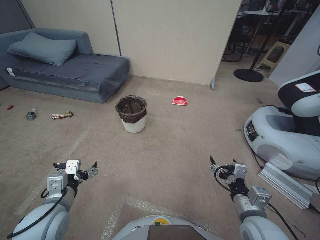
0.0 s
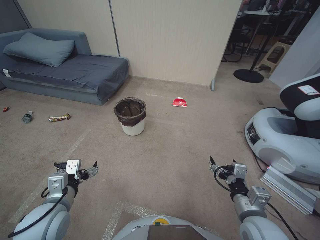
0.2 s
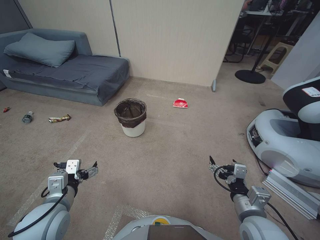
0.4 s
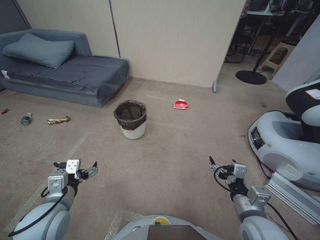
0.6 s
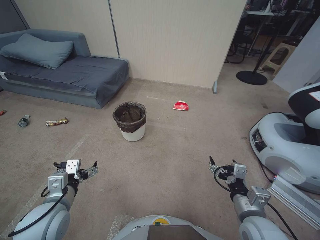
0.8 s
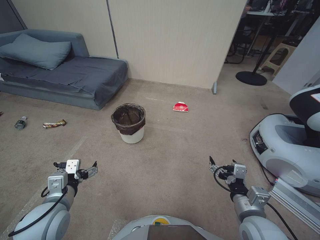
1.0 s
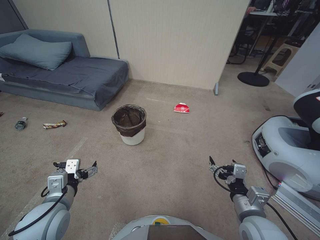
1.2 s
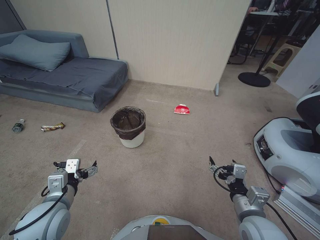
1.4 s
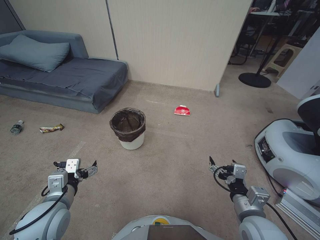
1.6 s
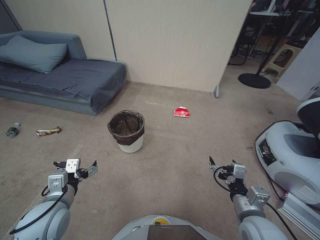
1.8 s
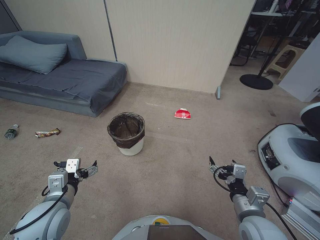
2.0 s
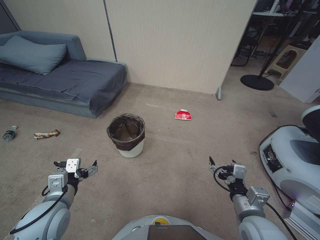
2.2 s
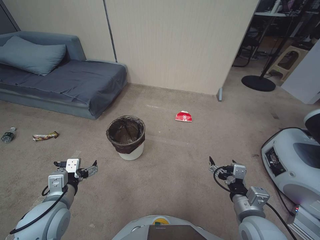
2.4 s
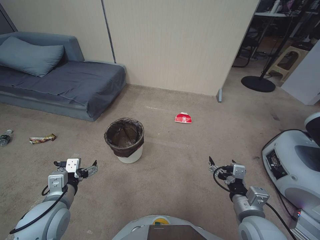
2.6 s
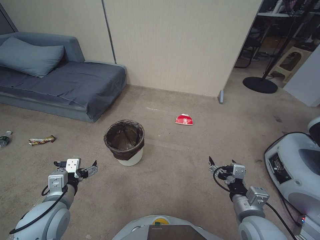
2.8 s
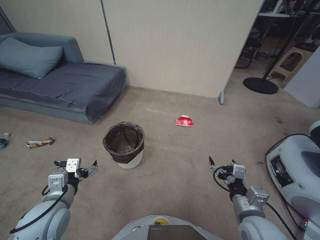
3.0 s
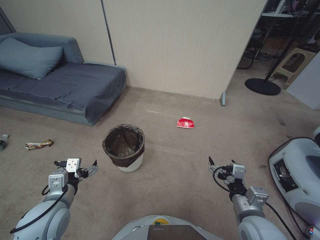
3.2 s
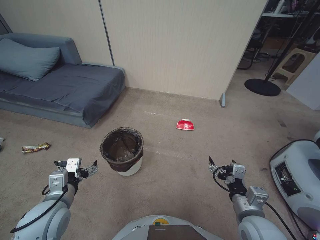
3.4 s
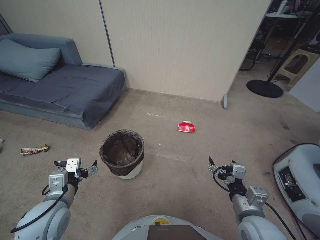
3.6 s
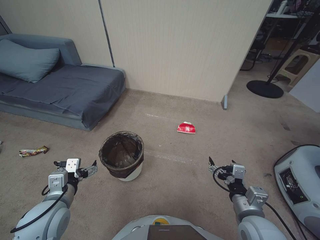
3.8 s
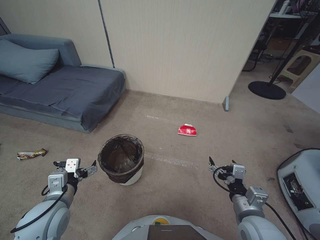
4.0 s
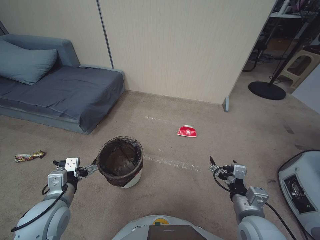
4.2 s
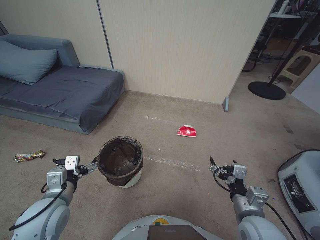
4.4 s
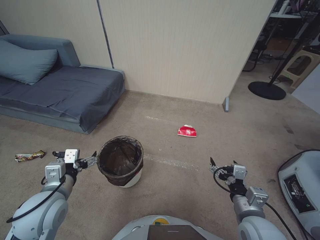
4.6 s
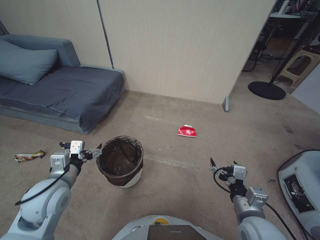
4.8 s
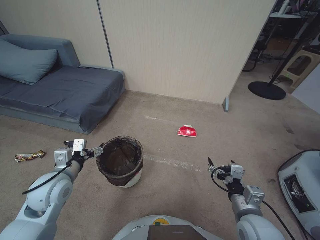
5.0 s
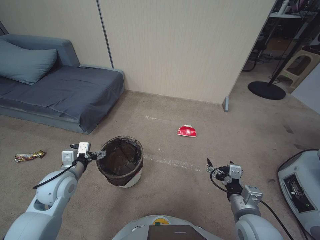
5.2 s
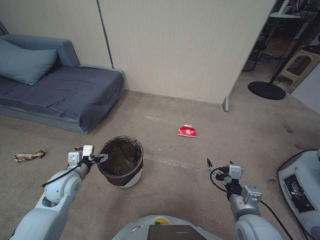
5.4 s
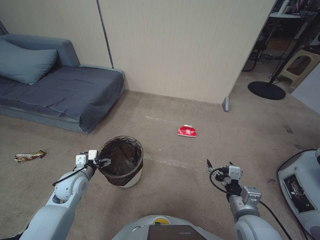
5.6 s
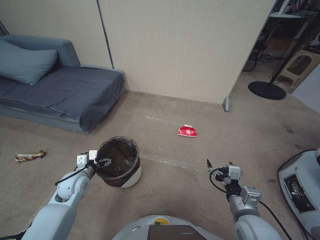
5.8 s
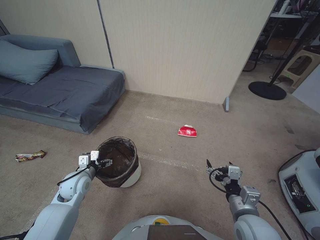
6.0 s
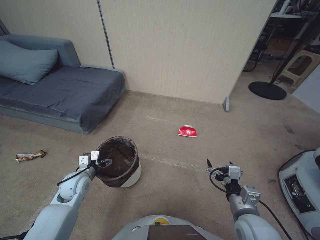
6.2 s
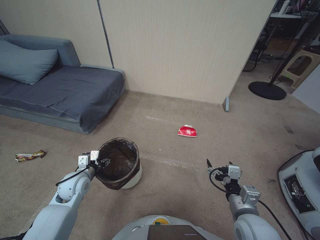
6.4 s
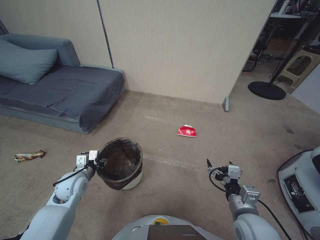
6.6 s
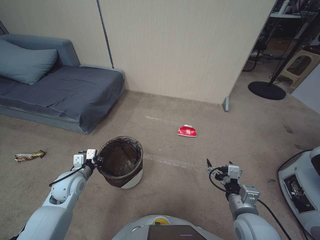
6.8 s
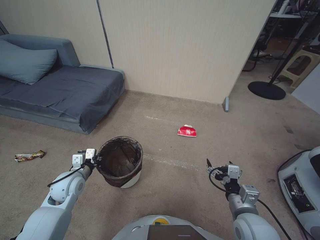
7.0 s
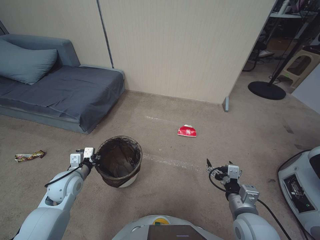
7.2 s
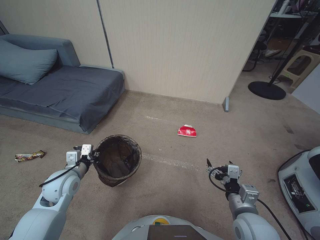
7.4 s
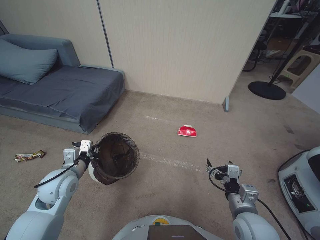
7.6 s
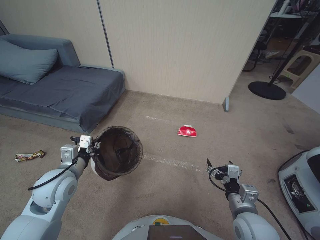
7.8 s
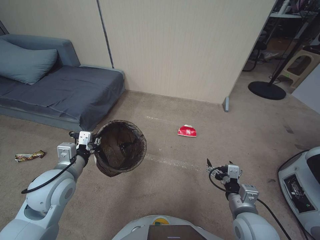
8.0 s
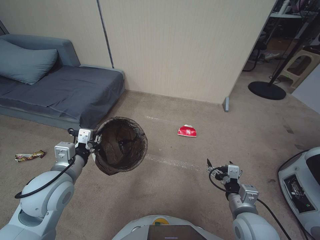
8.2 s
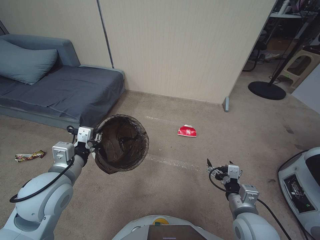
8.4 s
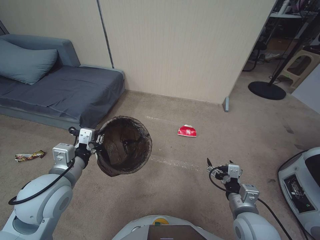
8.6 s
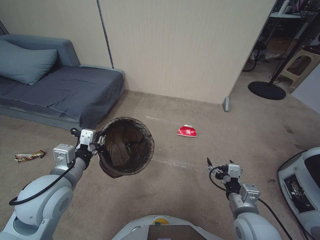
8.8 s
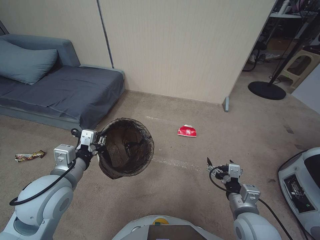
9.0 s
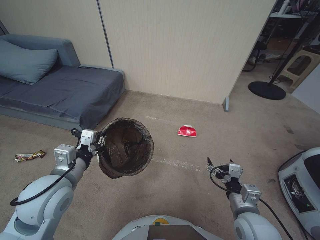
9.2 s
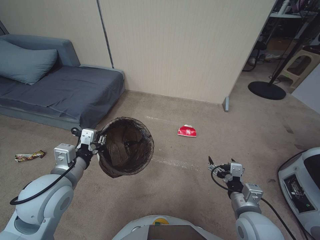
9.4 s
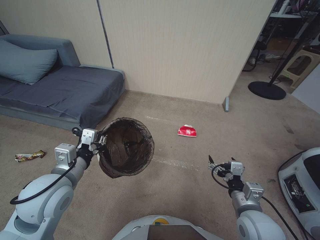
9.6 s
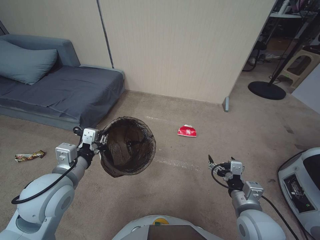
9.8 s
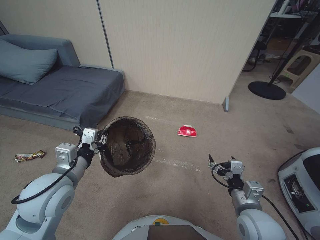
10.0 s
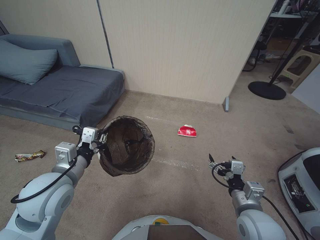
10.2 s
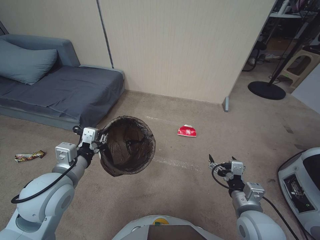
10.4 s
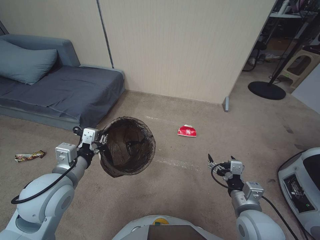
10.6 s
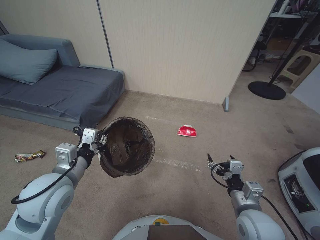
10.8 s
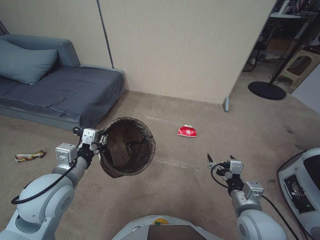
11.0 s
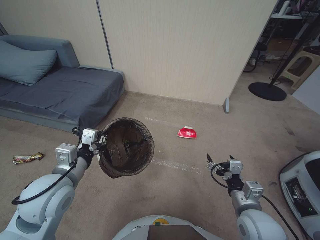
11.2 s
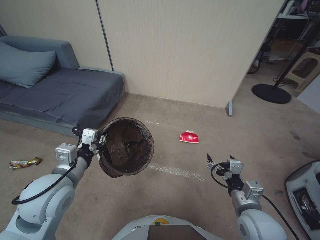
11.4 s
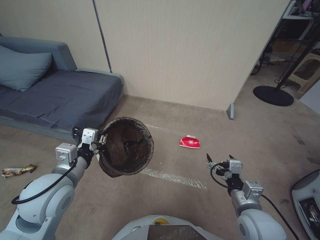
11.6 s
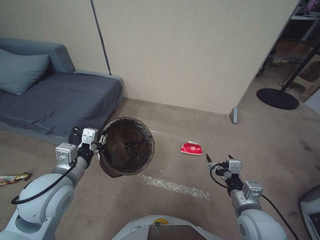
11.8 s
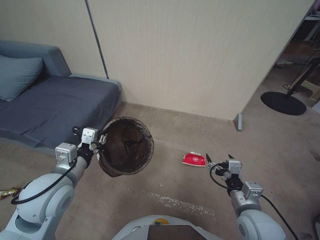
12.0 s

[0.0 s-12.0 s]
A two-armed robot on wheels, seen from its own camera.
Task of the whole recording: Pick up the trash bin, then pick up the garbage from the floor and place it into the trash bin.
1.6 to 4.4 s: Both grippers stay about where they are.
4.4 to 6.0 s: The left gripper travels forward and downward by roughly 15 cm.
6.0 to 7.6 s: The left gripper moves upward, approximately 5 cm, and closes its fingers.
7.6 to 9.0 s: The left gripper shifts roughly 15 cm upward, backward and to the right.
9.0 to 10.4 s: The grippers move only a little.

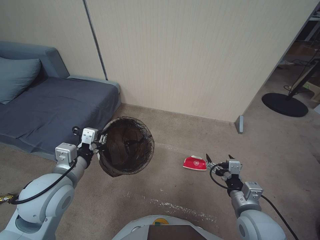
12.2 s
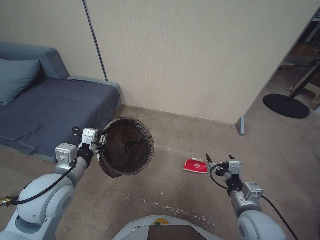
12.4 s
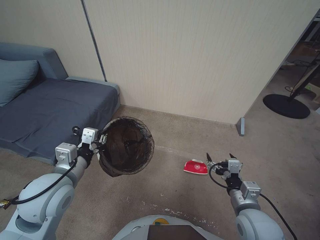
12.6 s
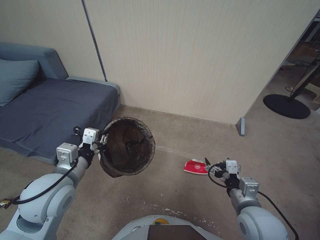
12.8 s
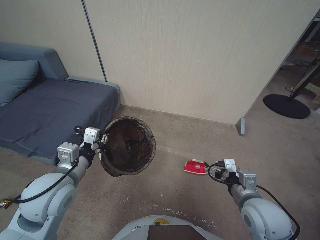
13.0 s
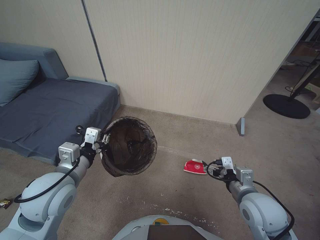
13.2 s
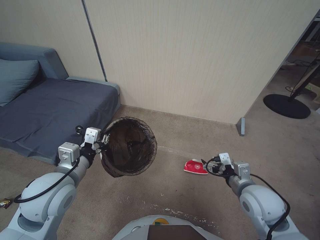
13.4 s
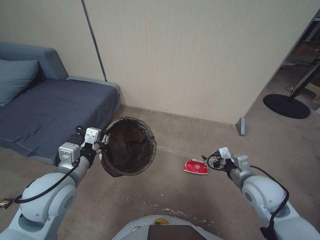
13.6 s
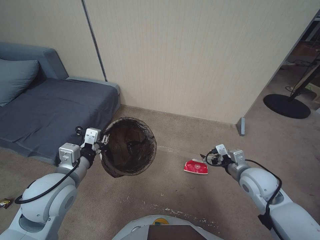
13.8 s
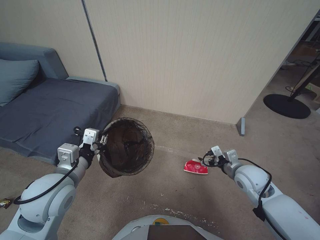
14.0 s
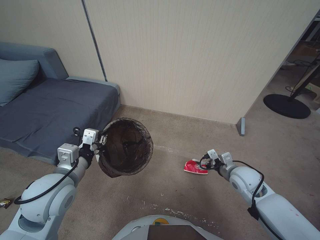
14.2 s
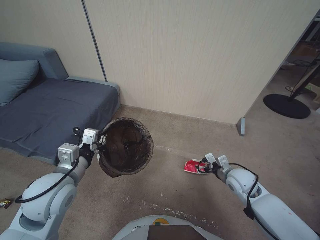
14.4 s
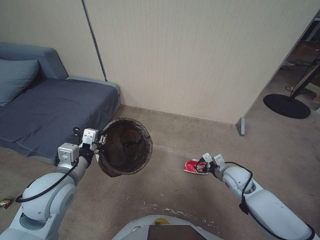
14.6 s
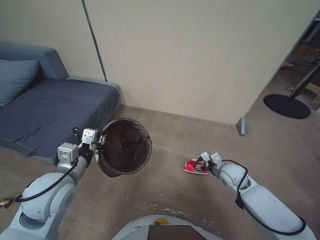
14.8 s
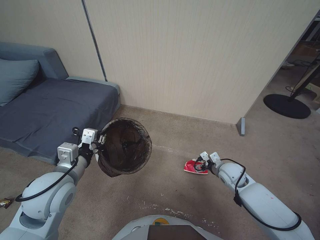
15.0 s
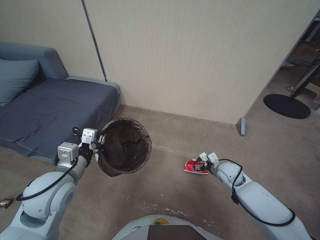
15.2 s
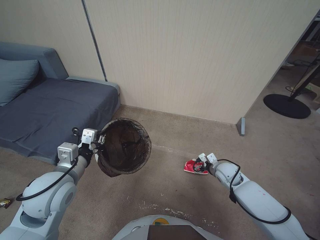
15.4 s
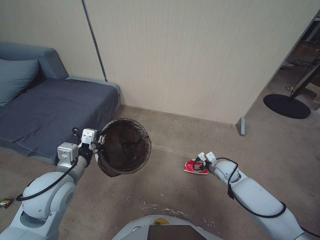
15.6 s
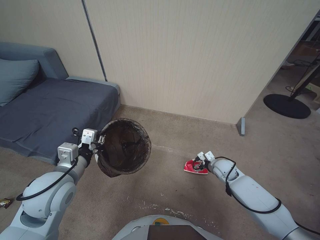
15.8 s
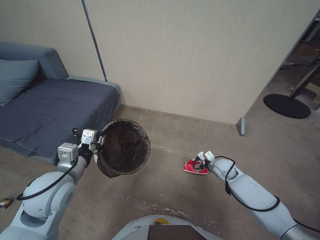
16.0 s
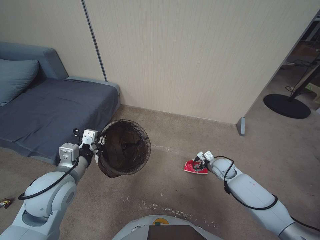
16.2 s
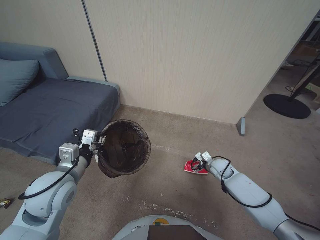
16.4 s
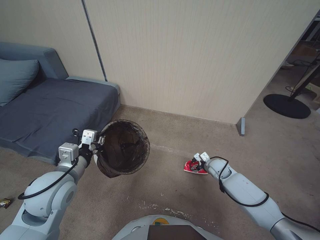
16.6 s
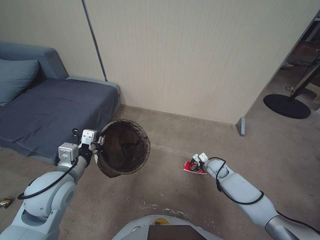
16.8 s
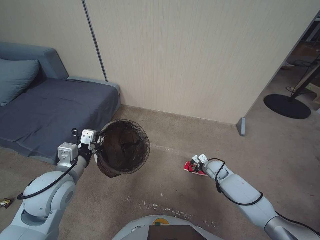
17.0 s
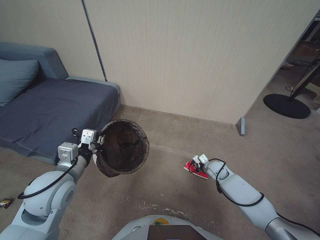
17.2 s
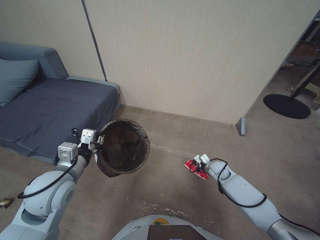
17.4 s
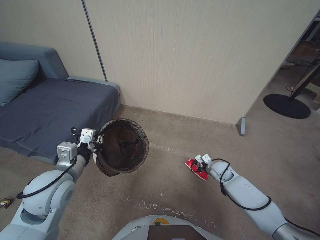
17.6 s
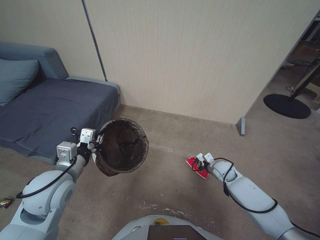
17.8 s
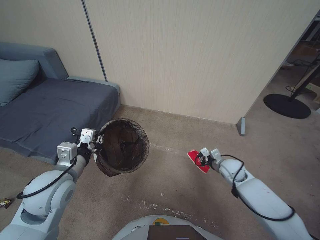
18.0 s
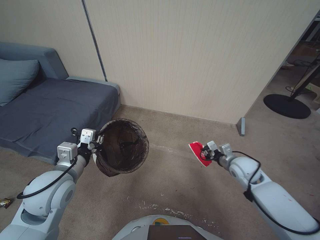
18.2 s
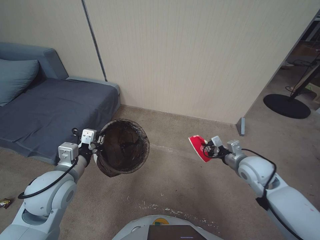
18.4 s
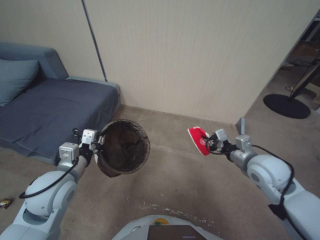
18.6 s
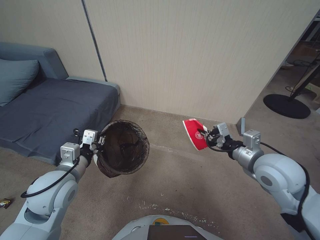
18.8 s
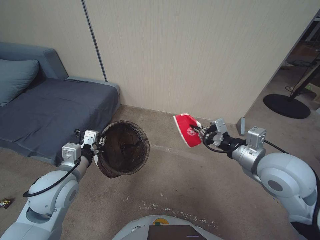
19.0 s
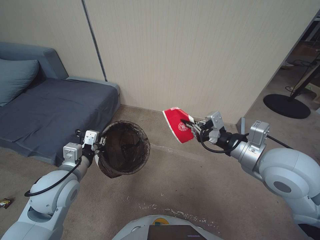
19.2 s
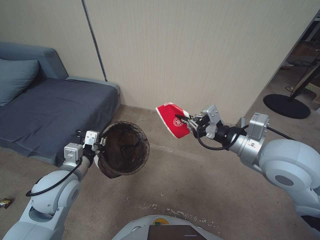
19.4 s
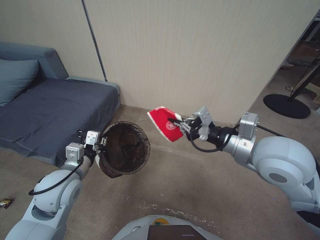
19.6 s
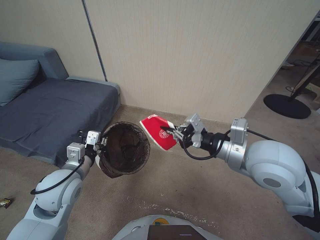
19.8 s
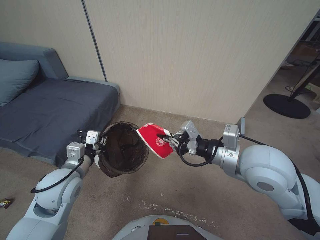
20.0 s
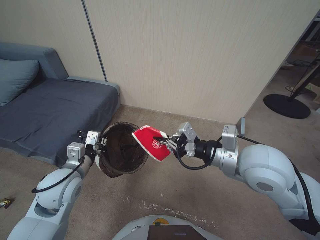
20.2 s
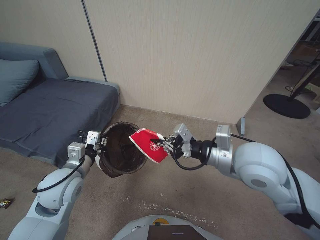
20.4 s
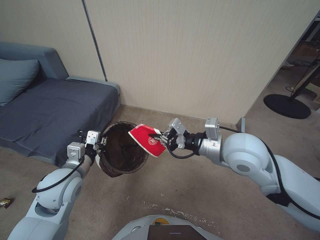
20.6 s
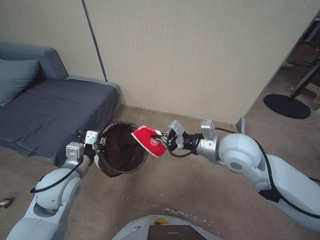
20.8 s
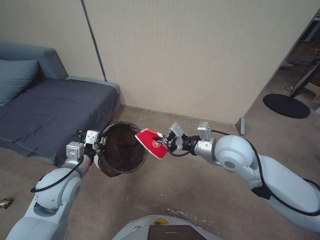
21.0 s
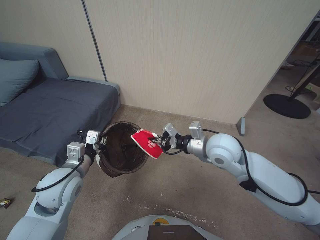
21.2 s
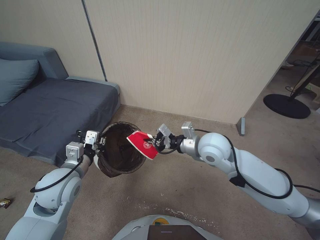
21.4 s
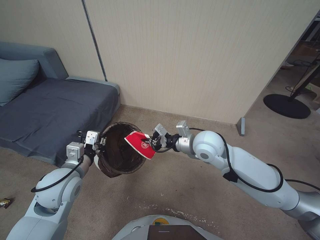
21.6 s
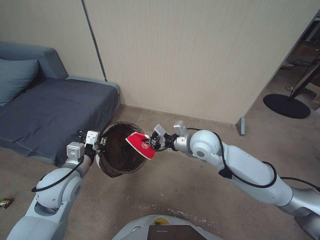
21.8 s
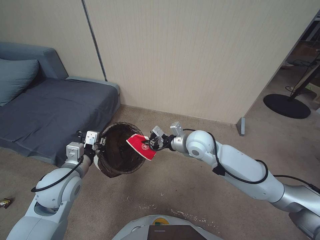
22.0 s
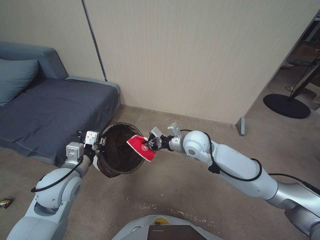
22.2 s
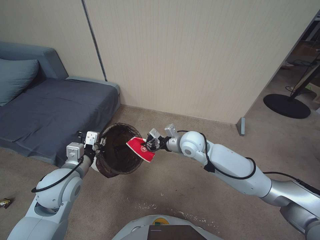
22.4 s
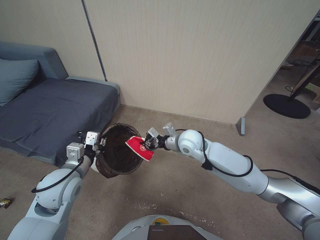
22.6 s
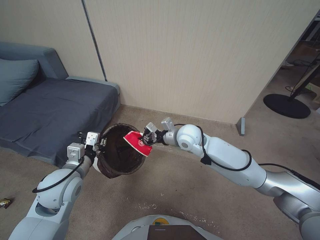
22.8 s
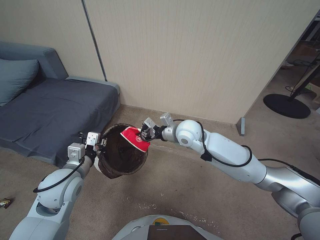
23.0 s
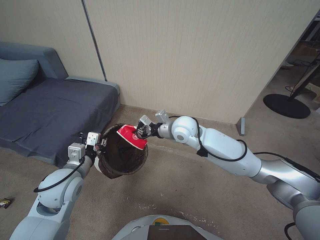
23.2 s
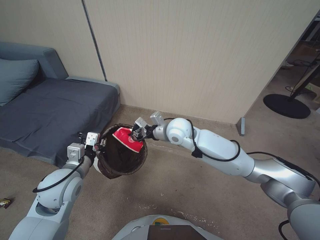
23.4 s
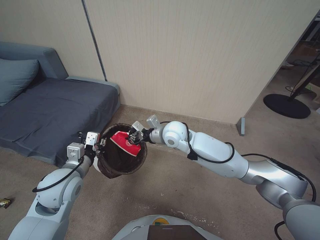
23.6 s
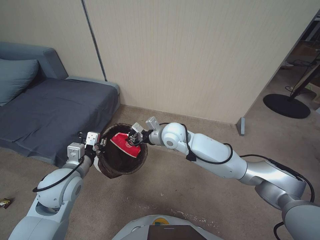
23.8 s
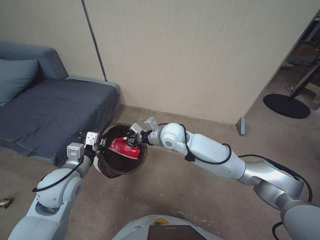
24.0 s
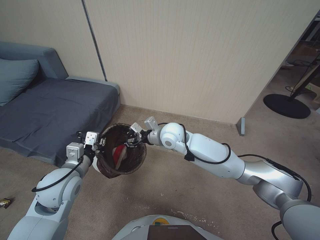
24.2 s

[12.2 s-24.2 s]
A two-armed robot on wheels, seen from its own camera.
Task of the whole recording: Pick up the trash bin, then pick up the garbage from the floor and place it into the trash bin.
12.2 to 13.8 s: The right gripper is displaced forward and to the right by some 10 cm.
13.8 to 15.2 s: The right gripper moves downward and forward, roughly 15 cm.
15.2 to 16.6 s: The right gripper shifts roughly 5 cm downward.
16.6 to 18.2 s: The right gripper travels upward by approximately 10 cm, and closes.
18.2 to 19.8 s: The right gripper is displaced upward by roughly 25 cm.
19.8 to 21.2 s: The right gripper heads downward and forward, covering about 10 cm.
21.2 to 22.6 s: The right gripper goes roughly 15 cm forward, downward and to the left.
22.6 to 24.2 s: The right gripper travels to the left by roughly 5 cm.
